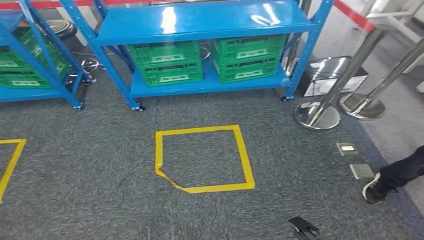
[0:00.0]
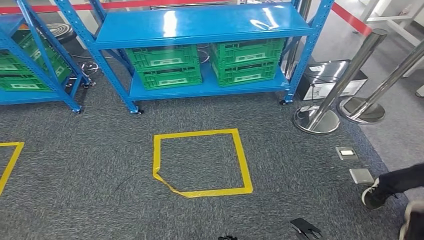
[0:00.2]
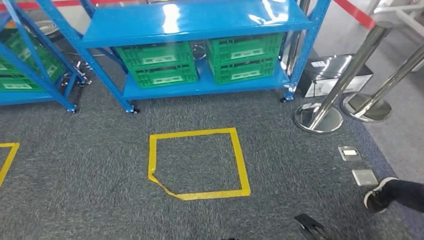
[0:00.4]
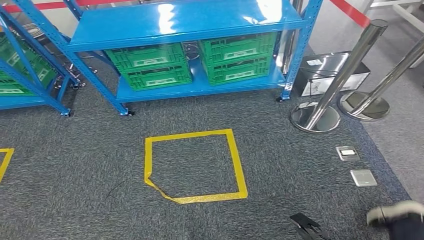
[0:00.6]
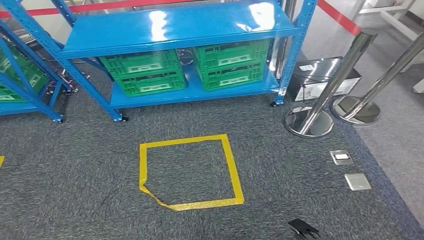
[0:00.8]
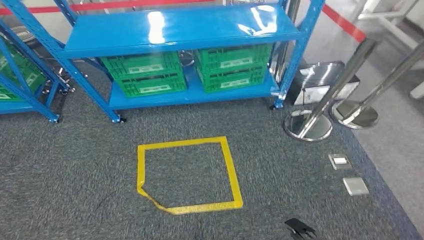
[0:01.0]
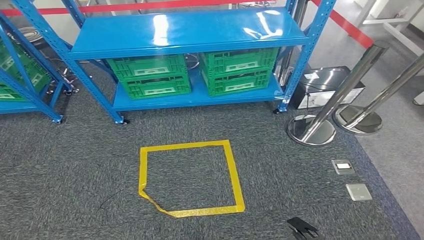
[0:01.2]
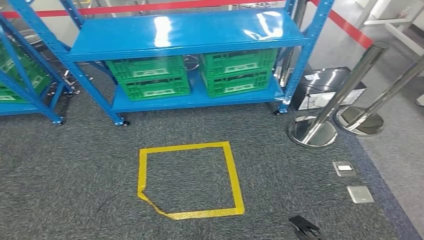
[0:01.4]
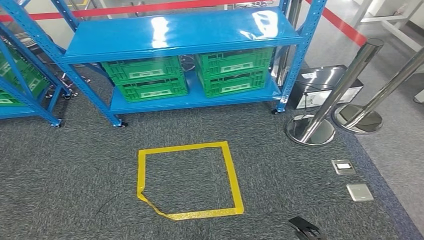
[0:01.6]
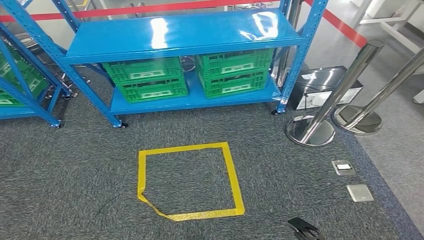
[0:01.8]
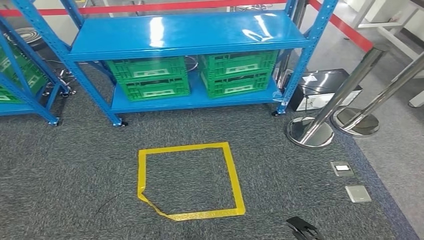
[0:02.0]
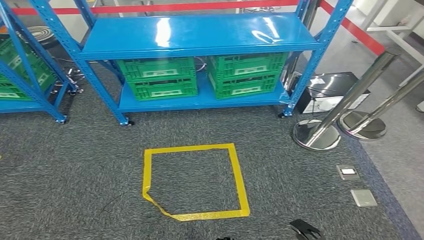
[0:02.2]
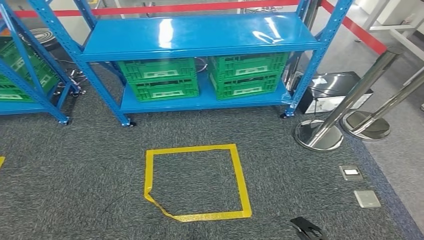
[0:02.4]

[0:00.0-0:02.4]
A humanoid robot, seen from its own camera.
Step, 0:00.0 to 0:02.4: Return to the initial position at the workbench.
